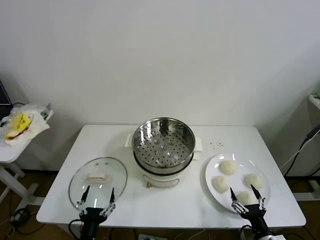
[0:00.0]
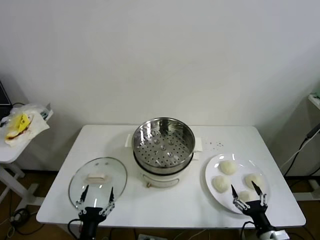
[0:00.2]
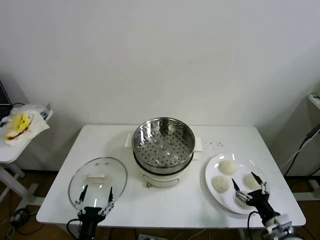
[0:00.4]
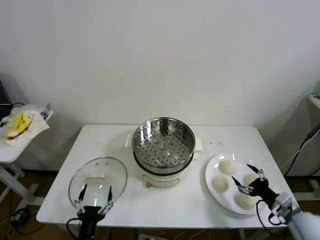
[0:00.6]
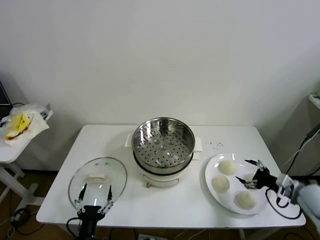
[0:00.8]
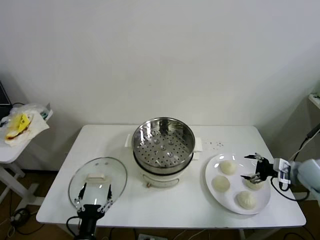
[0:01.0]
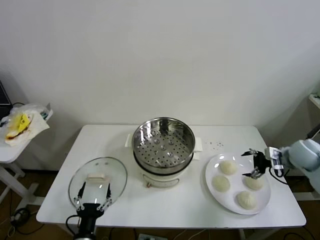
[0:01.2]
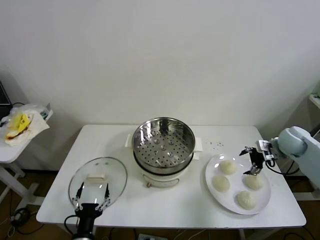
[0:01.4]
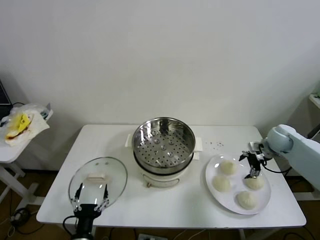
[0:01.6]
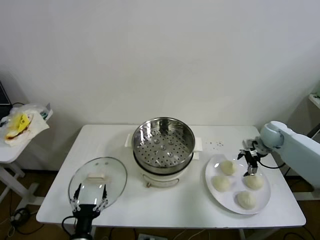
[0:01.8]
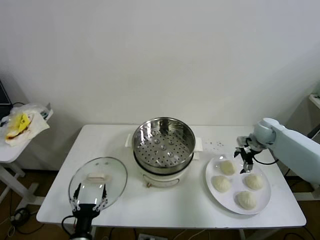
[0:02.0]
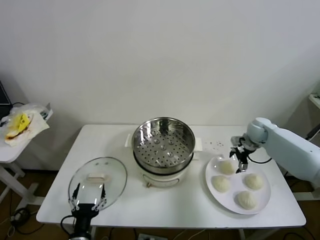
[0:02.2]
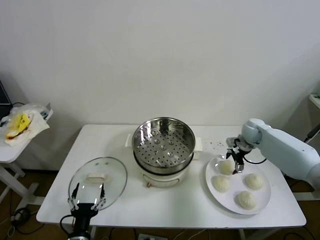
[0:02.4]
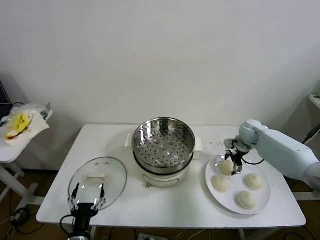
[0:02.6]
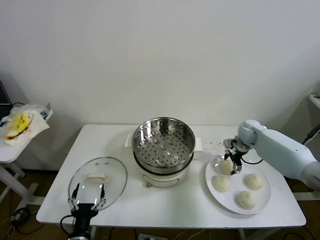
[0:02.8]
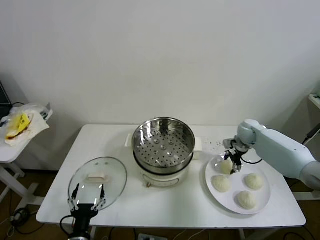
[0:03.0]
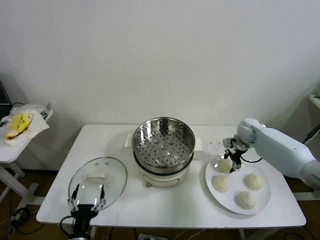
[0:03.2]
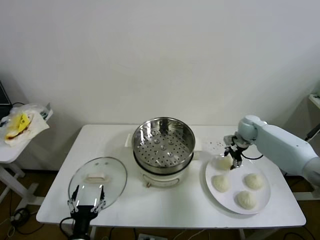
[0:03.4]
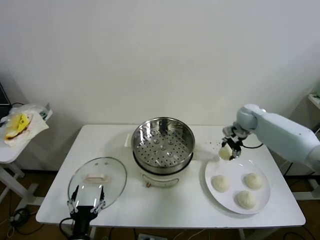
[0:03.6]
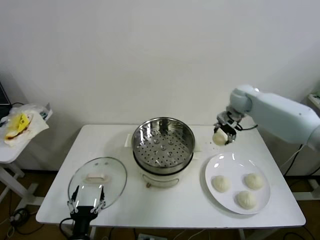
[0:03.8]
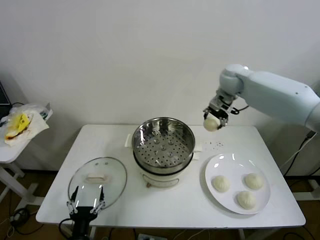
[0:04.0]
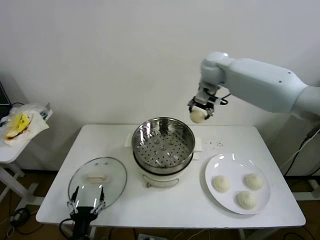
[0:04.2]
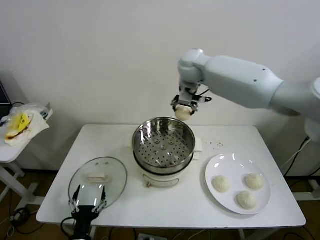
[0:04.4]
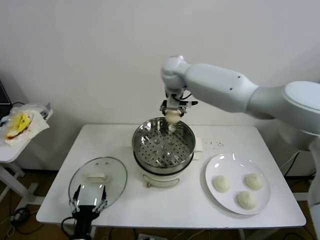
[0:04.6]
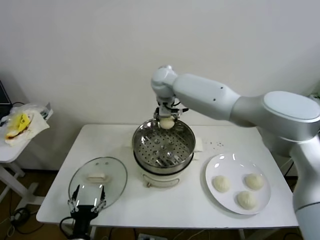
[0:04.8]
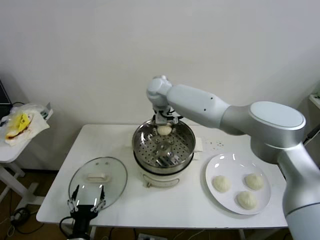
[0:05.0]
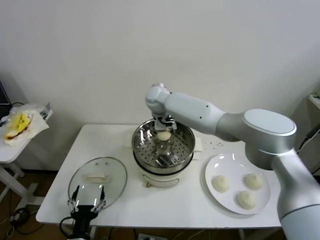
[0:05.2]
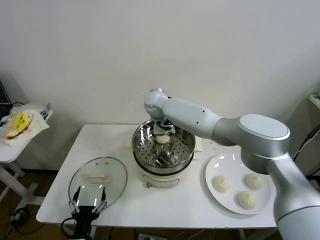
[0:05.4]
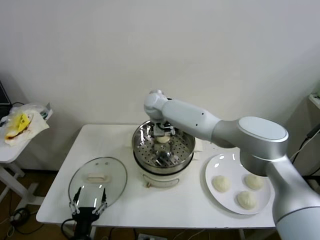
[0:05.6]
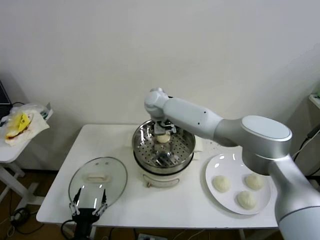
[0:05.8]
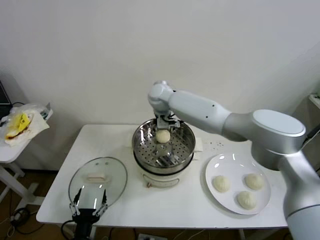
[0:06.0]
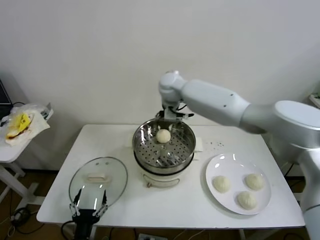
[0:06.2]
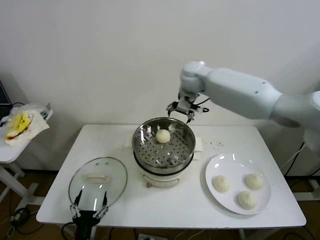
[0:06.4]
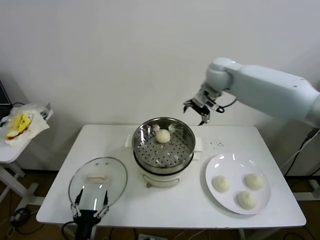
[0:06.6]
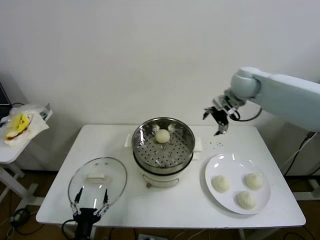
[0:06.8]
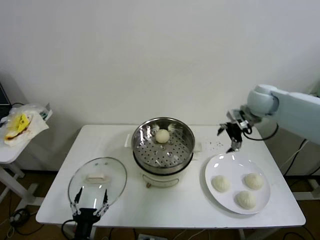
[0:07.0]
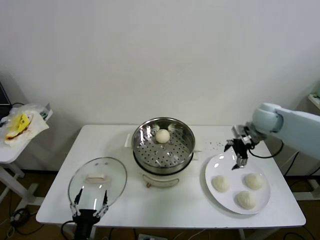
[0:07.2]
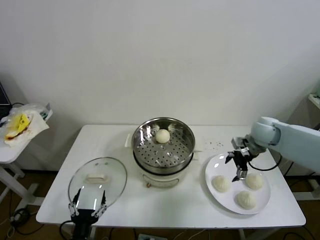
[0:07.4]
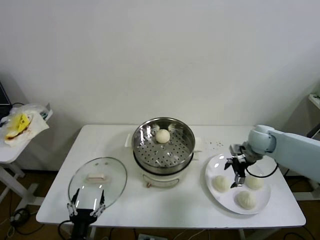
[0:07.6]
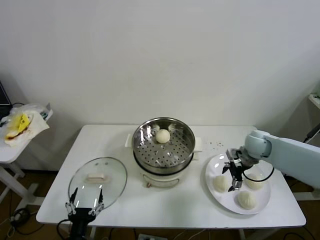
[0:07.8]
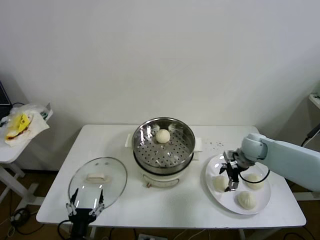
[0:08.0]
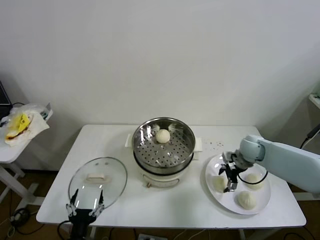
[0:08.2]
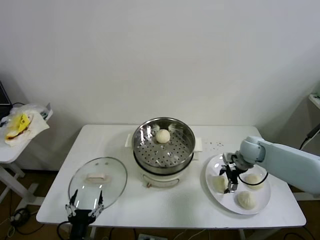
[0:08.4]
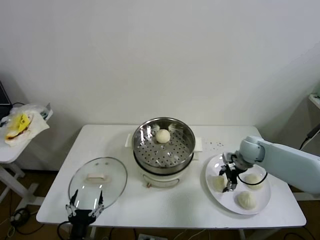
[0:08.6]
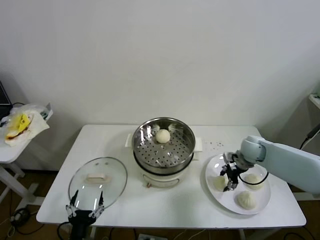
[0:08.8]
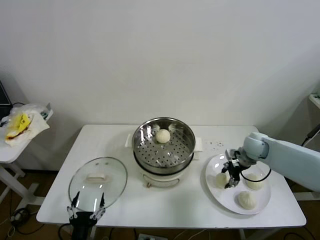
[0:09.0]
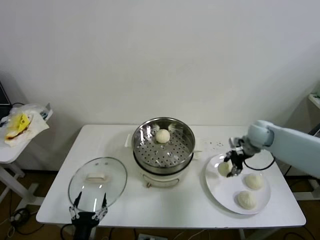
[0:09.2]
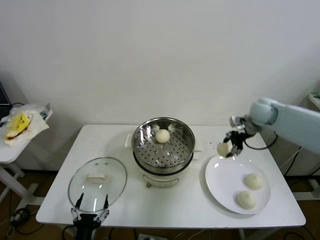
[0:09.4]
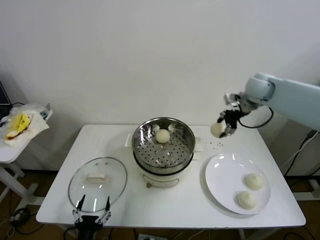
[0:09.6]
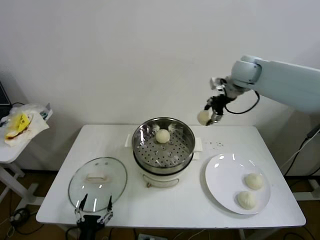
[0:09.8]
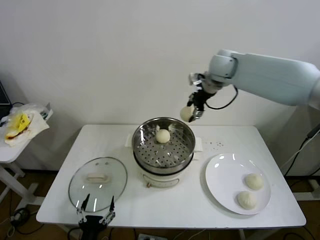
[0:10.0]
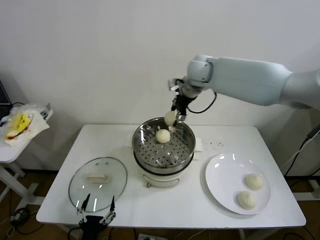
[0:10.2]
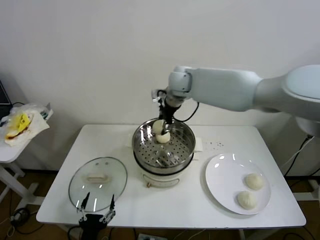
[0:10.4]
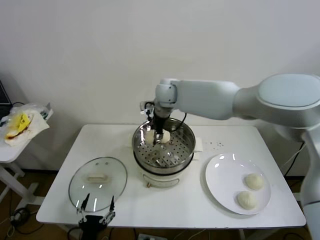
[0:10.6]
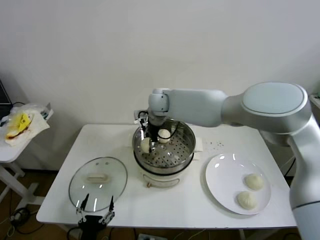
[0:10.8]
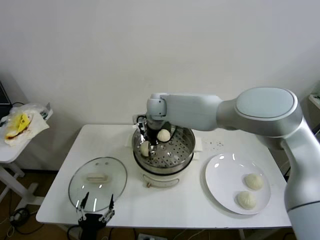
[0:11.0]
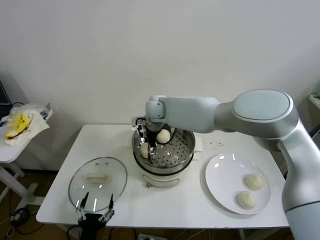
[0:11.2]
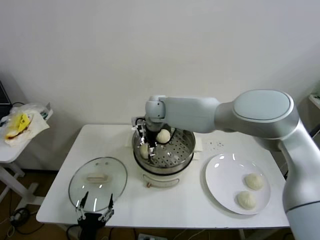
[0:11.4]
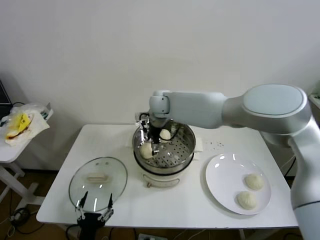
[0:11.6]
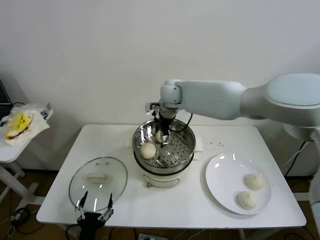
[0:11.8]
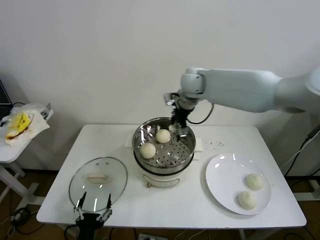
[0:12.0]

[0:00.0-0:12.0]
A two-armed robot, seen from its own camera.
Step, 0:00.0 to 0:02.8: Grasp the baozi in the plate with right gripper.
Step, 0:03.0 to 0:05.4: Place the baozi on the steamer with right gripper.
Step, 0:05.6 to 0:08.4: Grasp the baozi in the plate with right gripper.
Step, 0:08.6 to 0:11.2: Place the baozi on the steamer with right gripper.
0:01.6 to 0:03.0: The right gripper shifts some 10 cm to the left and forward, and closes.
0:03.0 to 0:04.4: The right gripper travels to the left and upward by about 40 cm.
0:04.4 to 0:06.0: The right gripper travels downward and to the left by about 10 cm, and opens.
0:06.0 to 0:07.6: The right gripper travels to the right and downward by some 40 cm.
0:07.6 to 0:09.0: The right gripper closes up.
0:09.0 to 0:10.4: The right gripper travels to the left and upward by about 35 cm.
0:10.4 to 0:12.0: The right gripper goes some 10 cm to the right, and opens its fingers.

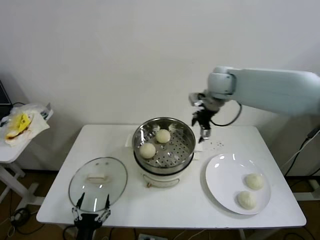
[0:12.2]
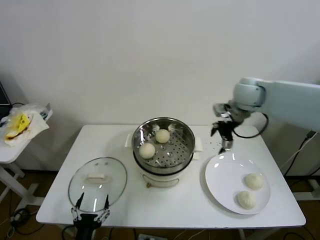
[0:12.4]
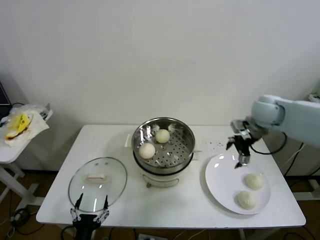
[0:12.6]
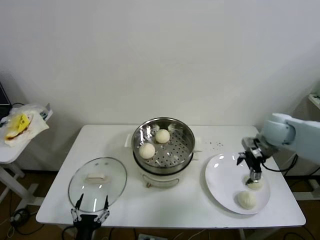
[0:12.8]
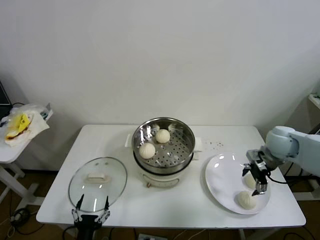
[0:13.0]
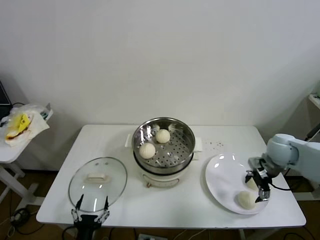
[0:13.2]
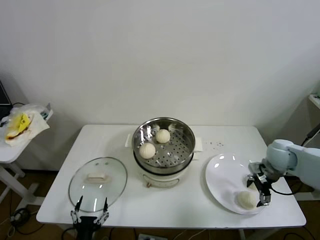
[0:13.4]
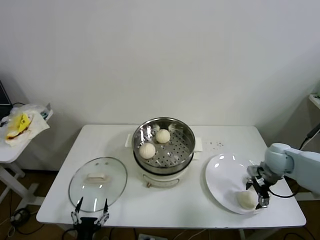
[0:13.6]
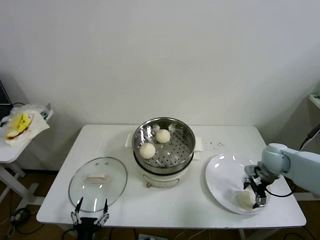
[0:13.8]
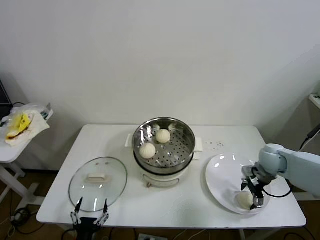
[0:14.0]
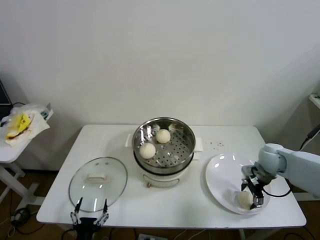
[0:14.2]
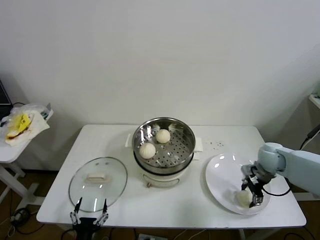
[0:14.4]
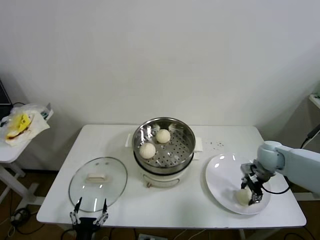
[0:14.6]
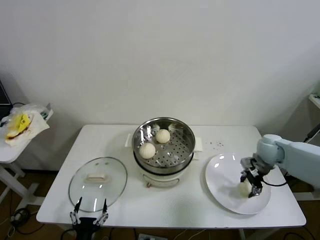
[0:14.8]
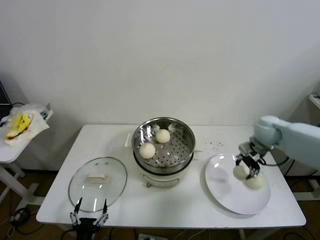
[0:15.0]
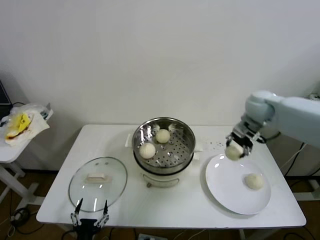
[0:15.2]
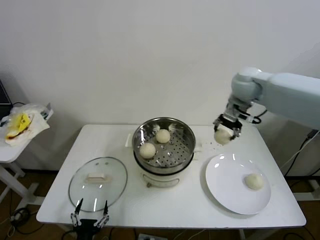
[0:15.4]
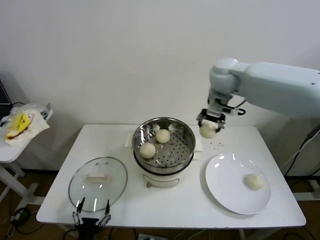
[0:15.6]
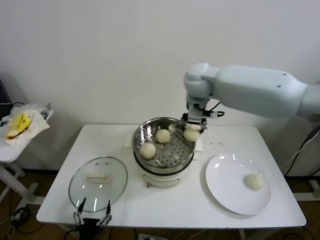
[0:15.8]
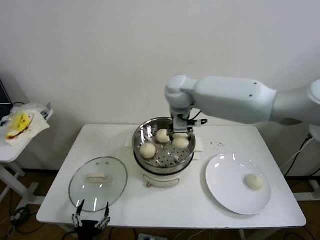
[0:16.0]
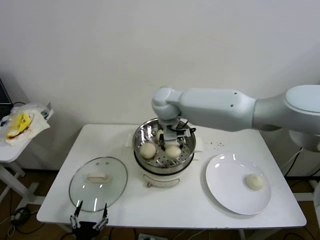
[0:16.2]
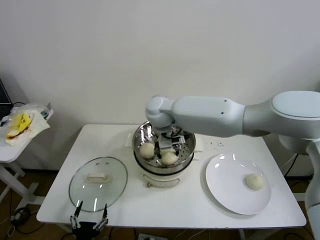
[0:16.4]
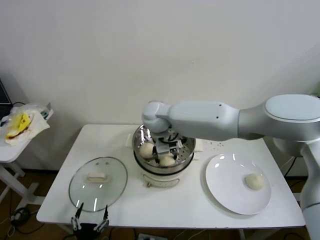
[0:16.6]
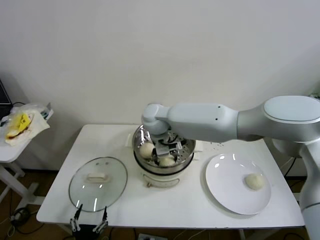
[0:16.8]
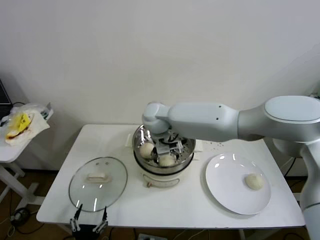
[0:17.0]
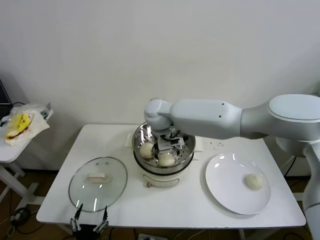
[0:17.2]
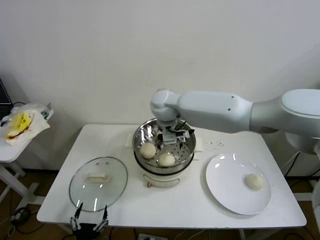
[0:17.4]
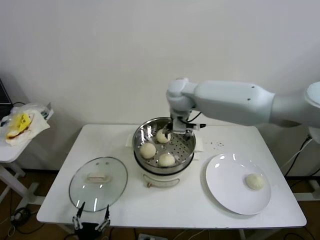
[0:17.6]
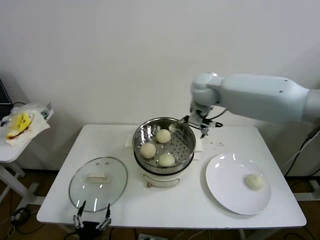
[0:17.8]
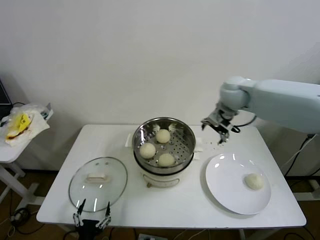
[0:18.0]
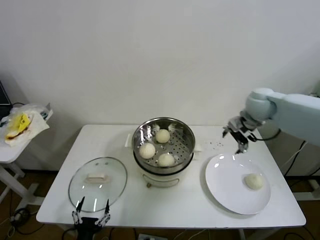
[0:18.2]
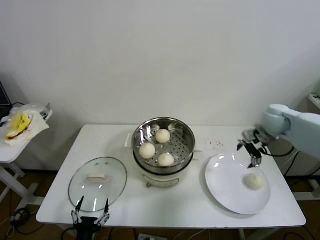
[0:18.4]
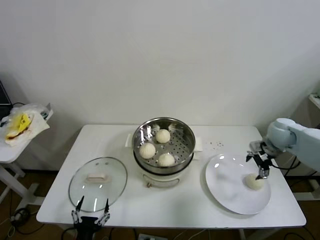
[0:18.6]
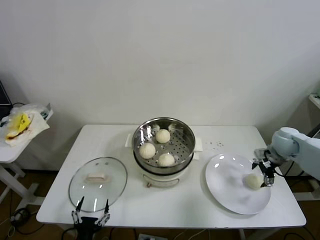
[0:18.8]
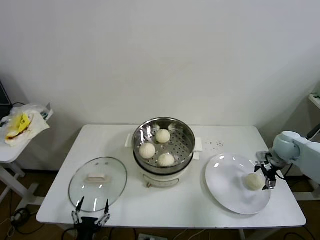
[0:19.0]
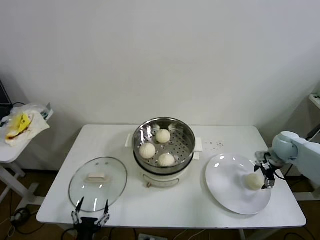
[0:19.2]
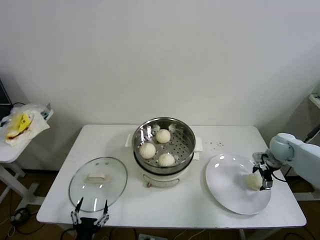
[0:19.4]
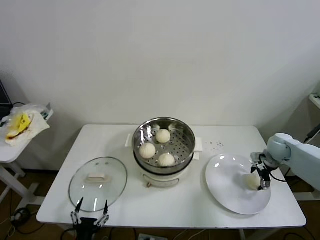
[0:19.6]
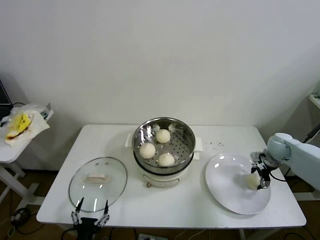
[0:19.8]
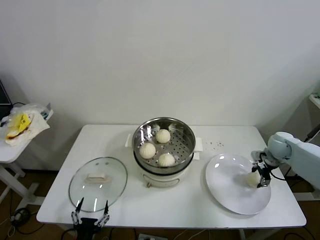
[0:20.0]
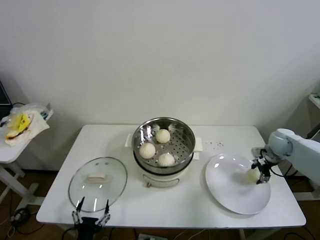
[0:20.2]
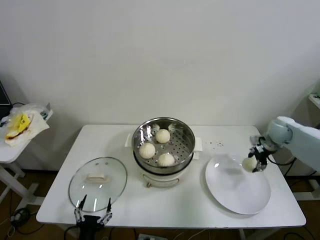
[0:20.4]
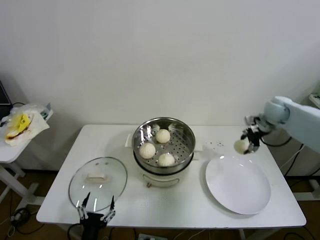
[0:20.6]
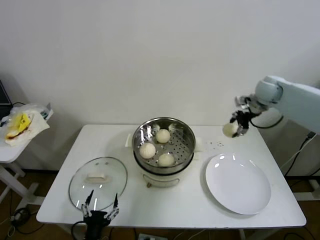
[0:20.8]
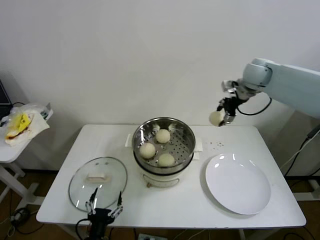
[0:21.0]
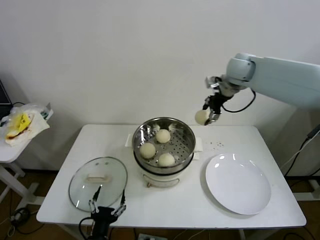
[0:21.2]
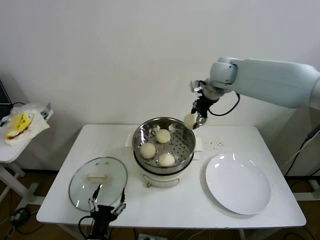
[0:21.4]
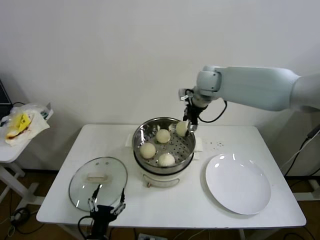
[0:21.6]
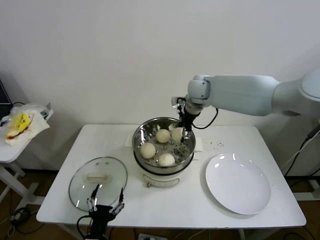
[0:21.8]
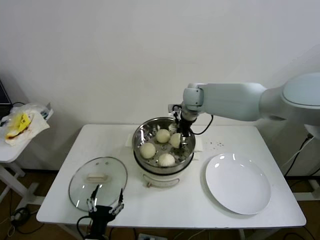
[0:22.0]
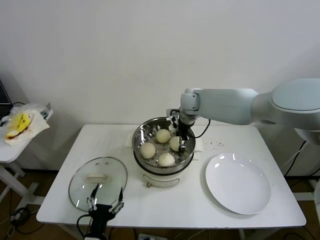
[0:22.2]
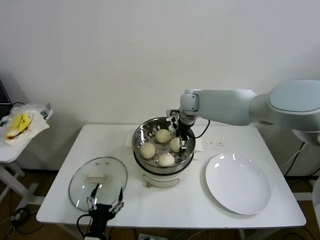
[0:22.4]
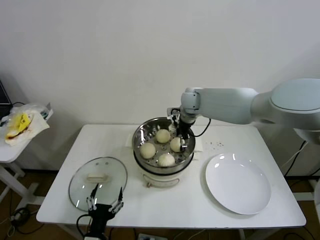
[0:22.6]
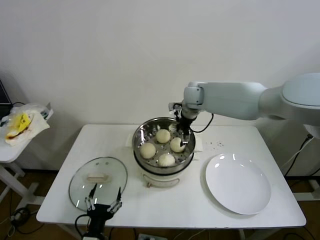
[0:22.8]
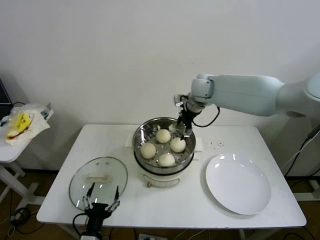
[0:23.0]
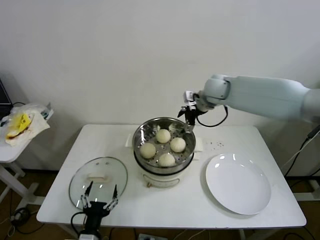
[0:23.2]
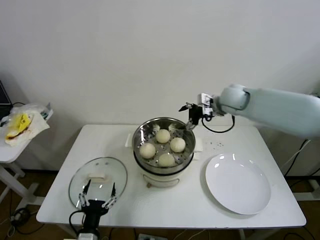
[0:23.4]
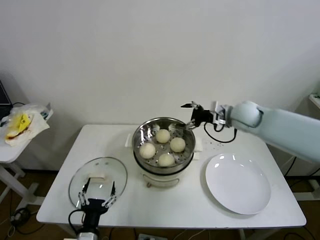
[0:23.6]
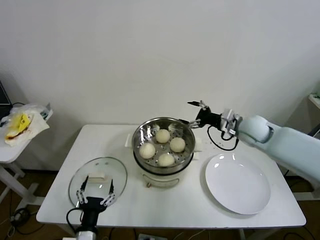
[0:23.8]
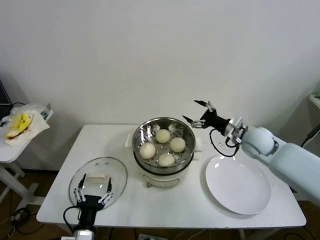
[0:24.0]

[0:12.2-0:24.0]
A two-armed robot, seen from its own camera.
Step, 0:12.2 to 0:14.2: Grasp the baozi in the plate with right gripper.
Step, 0:14.4 to 0:16.8: Place the baozi on the steamer with right gripper.
Step, 0:17.0 to 0:19.8: Grasp the baozi in the plate with right gripper.
Step, 0:20.0 to 0:22.2: Place the baozi on the steamer with right gripper.
0:12.2 to 0:13.6: The right gripper moves downward, to the right and backward, approximately 30 cm.
0:13.6 to 0:15.2: The right gripper heads upward, forward and to the left, covering approximately 20 cm, and closes up.
0:15.2 to 0:16.6: The right gripper goes approximately 35 cm to the left.
0:16.6 to 0:18.2: The right gripper is displaced to the right by roughly 35 cm, and opens its fingers.
0:18.2 to 0:19.6: The right gripper is displaced downward and to the right by some 20 cm.
0:19.6 to 0:21.0: The right gripper shifts approximately 30 cm upward, to the left and forward, and closes.
0:21.0 to 0:22.6: The right gripper moves to the left and downward, approximately 20 cm, and opens up.
0:22.6 to 0:24.0: The right gripper heads to the right and backward, covering some 25 cm.
